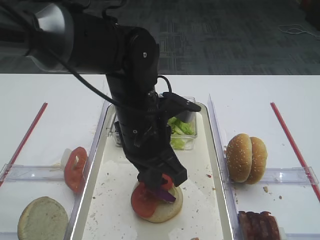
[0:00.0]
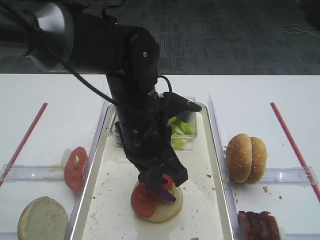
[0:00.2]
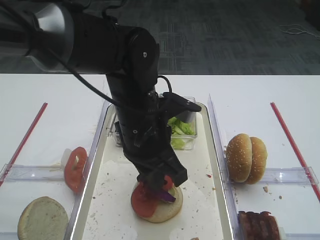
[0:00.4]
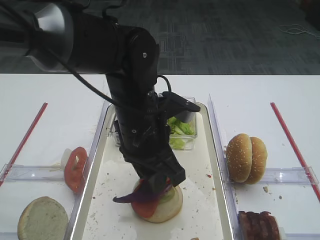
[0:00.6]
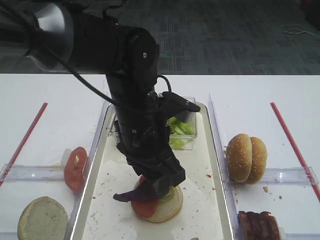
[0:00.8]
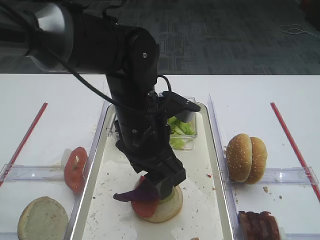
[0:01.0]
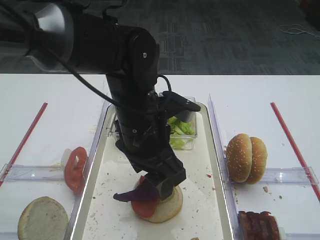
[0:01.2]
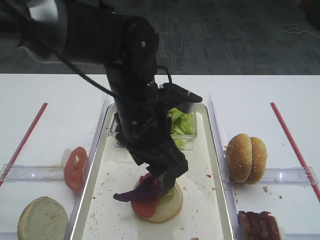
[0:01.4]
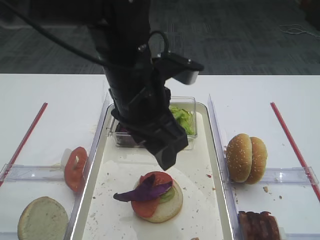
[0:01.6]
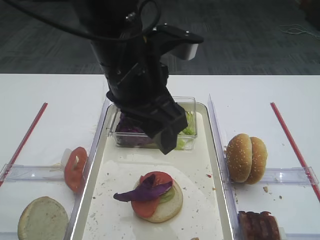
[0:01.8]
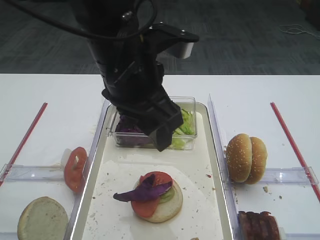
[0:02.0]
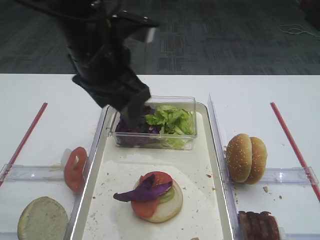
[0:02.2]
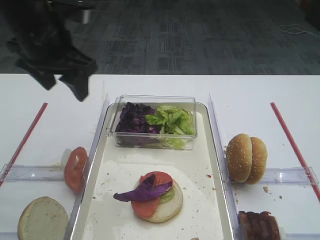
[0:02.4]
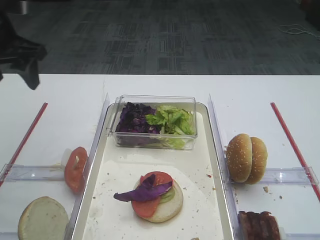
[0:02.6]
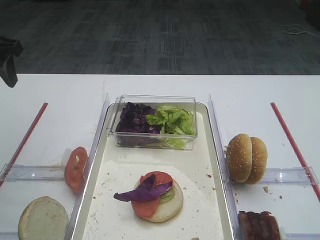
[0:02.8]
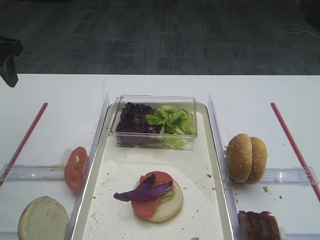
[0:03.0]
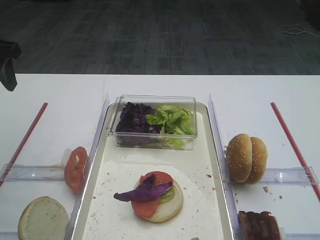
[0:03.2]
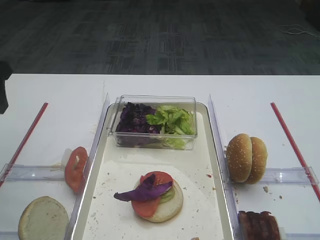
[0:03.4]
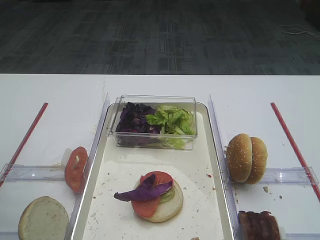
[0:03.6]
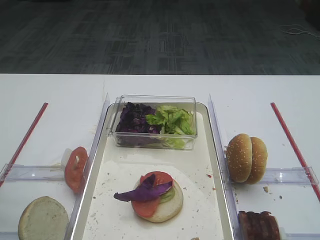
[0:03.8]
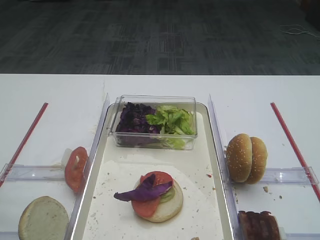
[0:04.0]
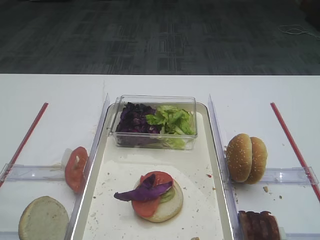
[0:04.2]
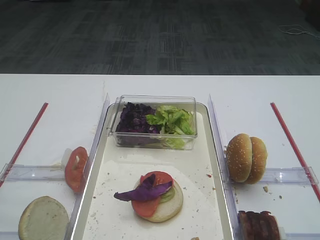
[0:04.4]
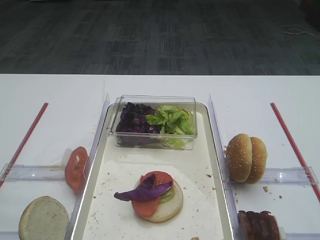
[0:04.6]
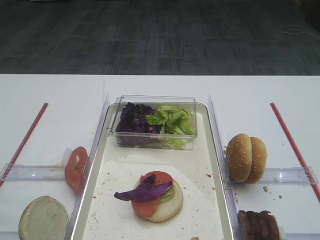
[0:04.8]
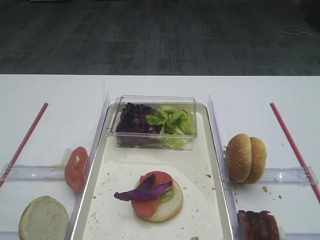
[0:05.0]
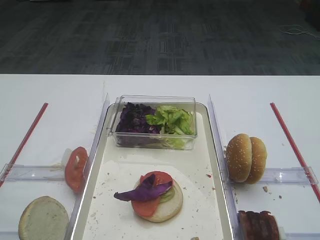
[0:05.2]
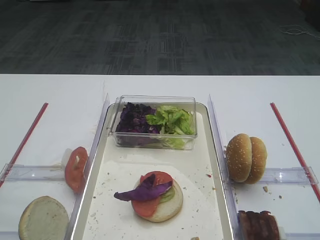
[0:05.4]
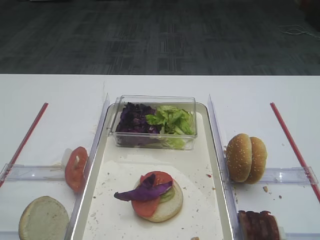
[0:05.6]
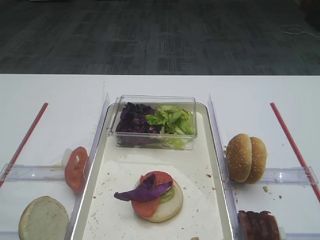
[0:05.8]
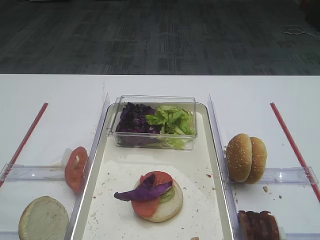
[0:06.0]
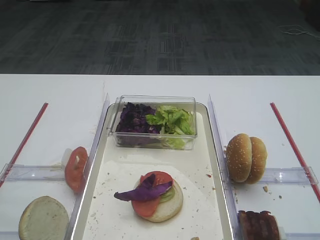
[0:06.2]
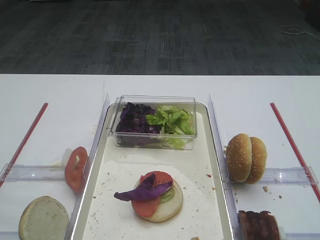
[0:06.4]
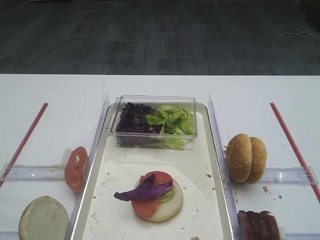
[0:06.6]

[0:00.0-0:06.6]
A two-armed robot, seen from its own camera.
0:00.0 to 0:01.6: The left gripper heads upward, covering roughly 5 cm, and opens up.
0:01.6 to 0:03.2: The left gripper goes roughly 25 cm to the left.
0:03.2 to 0:05.0: The left gripper shifts roughly 35 cm backward.
0:05.0 to 0:06.6: Both grippers stay put.

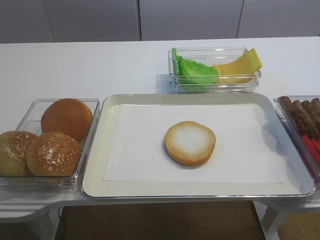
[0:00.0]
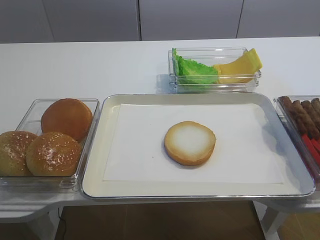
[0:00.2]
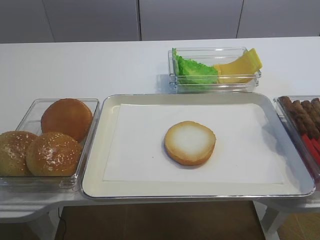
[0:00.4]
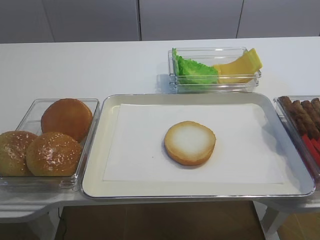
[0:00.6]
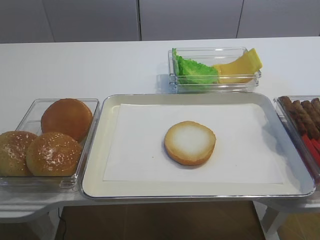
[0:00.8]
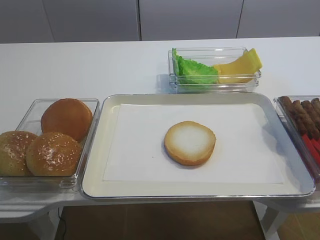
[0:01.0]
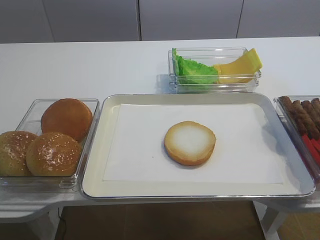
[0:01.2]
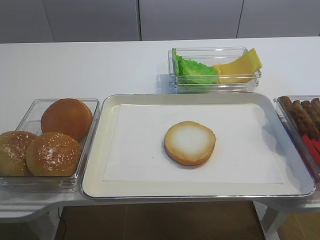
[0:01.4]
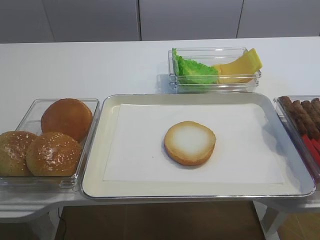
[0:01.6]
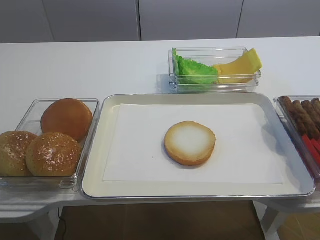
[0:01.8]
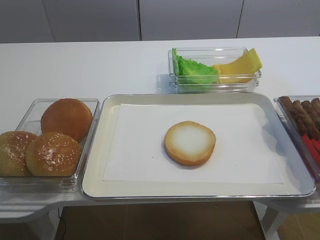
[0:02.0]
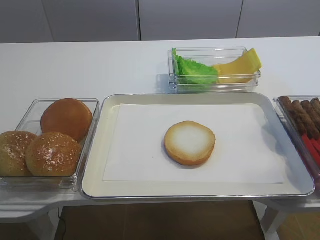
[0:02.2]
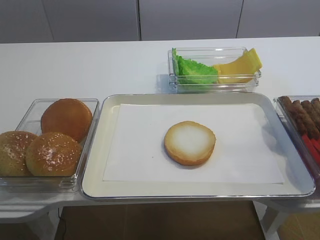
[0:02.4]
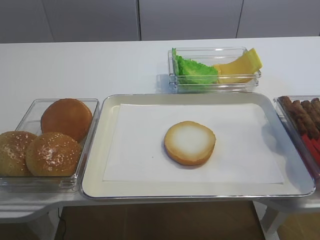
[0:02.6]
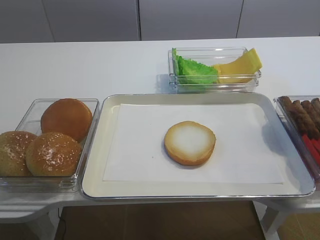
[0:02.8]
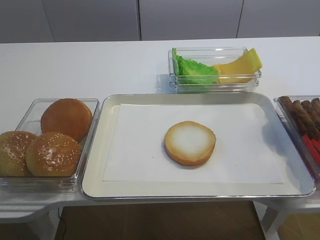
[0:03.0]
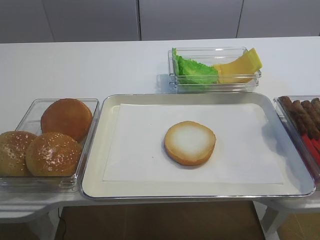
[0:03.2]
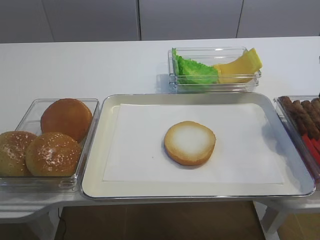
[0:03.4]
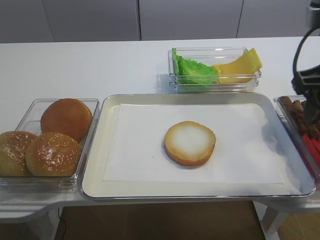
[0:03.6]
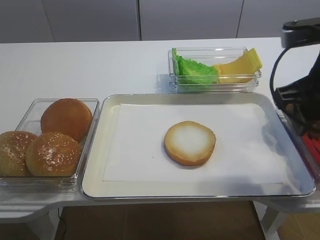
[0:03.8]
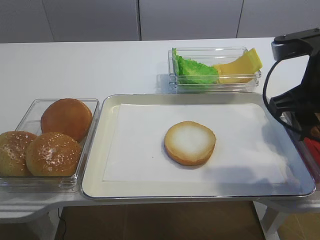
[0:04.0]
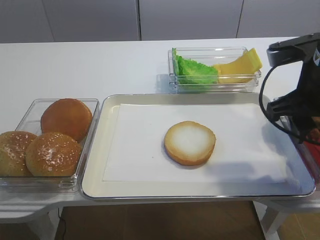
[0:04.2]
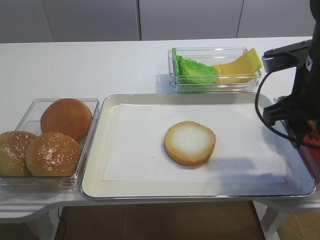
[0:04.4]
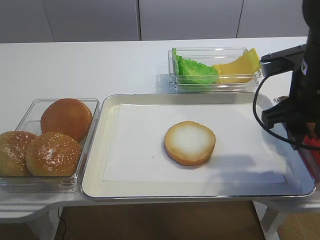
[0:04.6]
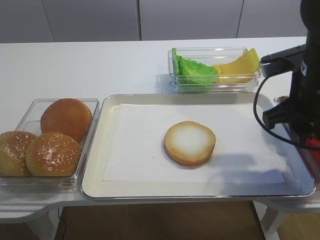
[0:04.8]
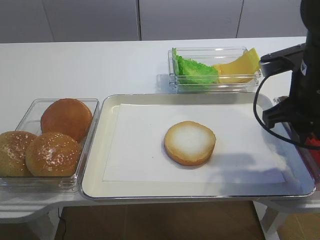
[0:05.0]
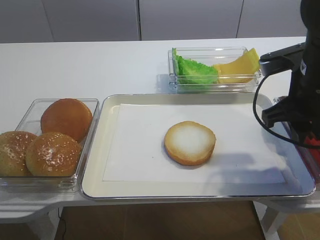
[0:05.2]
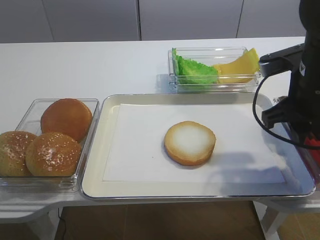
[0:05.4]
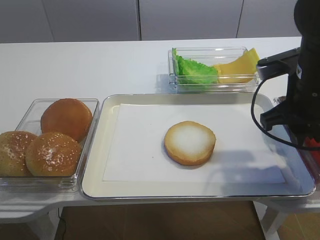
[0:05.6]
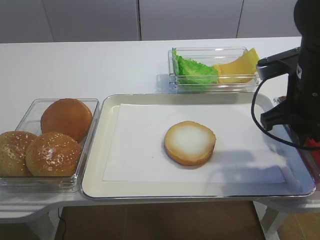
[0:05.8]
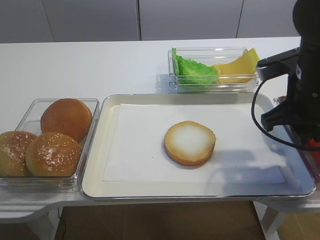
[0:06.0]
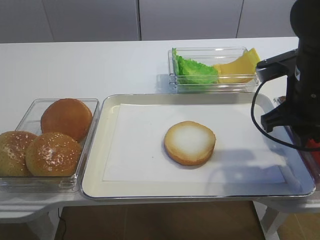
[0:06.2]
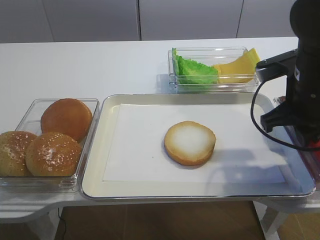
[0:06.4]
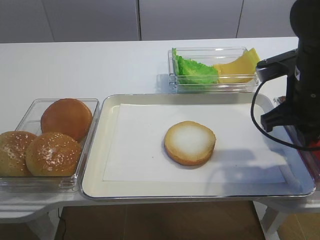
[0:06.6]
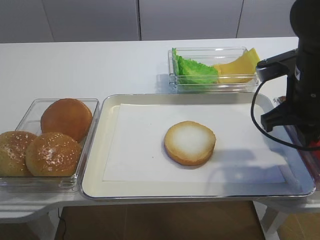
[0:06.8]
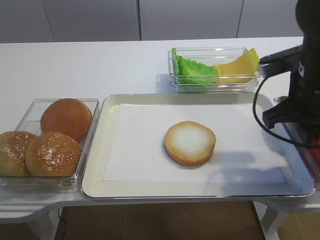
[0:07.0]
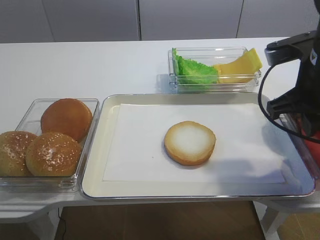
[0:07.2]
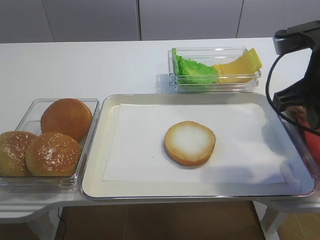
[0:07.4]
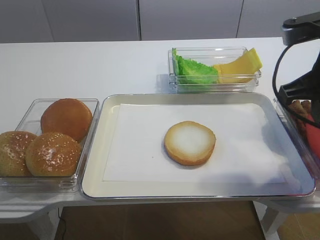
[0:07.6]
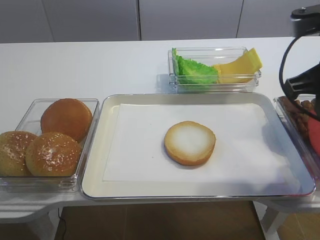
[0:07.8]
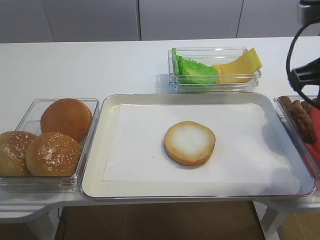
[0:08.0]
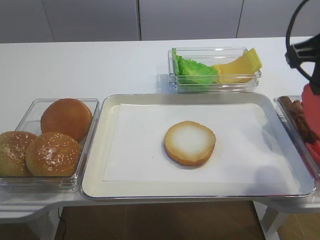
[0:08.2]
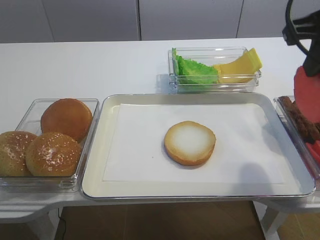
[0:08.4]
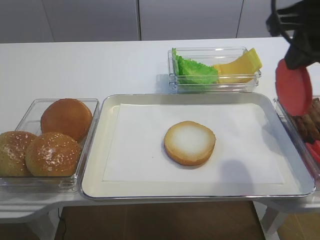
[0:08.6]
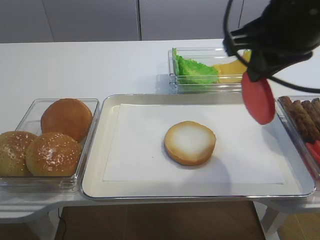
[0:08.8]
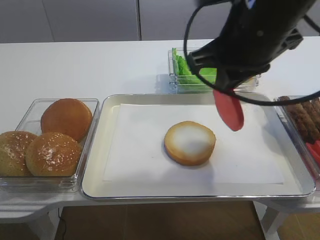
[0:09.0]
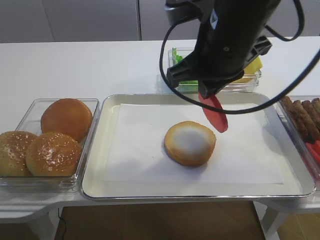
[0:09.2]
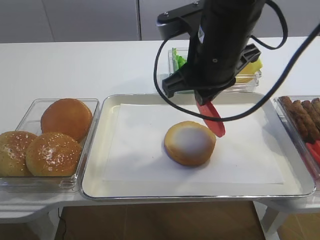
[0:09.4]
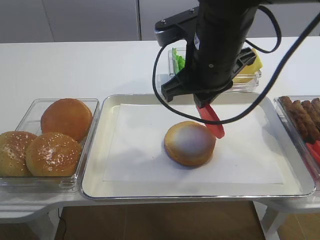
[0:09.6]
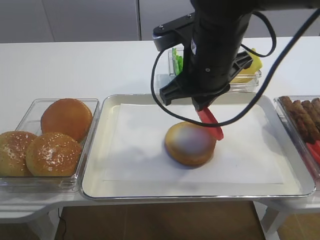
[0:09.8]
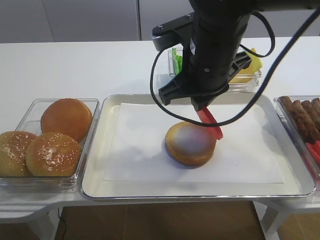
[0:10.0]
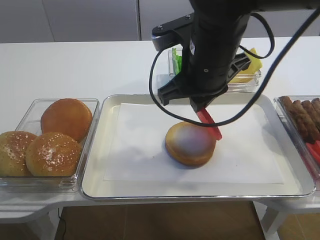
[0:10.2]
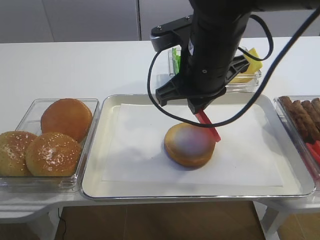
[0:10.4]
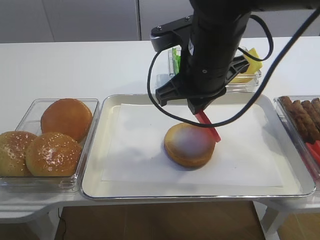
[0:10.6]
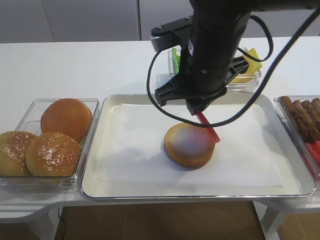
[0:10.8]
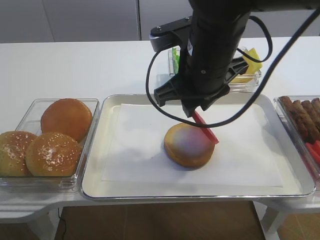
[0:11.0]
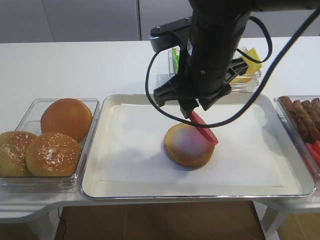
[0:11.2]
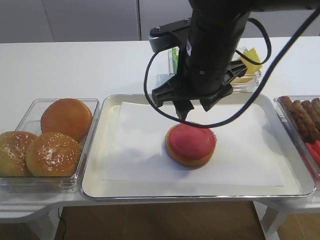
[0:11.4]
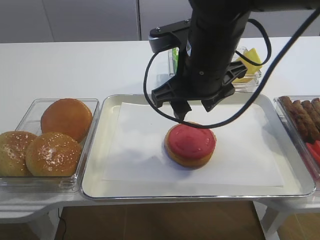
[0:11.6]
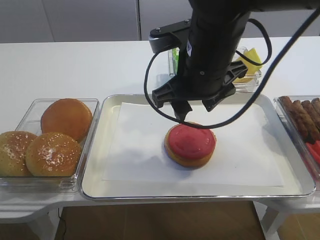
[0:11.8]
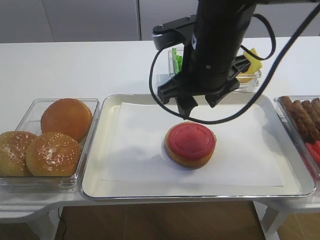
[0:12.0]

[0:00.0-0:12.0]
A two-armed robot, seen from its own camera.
Step, 0:00.0 to 0:07.6: Pick up the tomato slice with the right gripper.
0:01.6 to 0:03.0: The right gripper heads forward and upward, covering approximately 20 cm.
0:03.0 to 0:04.4: The right gripper moves downward, forward and to the left, approximately 15 cm.
0:04.4 to 0:06.0: The right gripper closes up.
0:06.0 to 0:07.6: The right gripper is displaced upward by approximately 5 cm, and closes.
0:07.6 to 0:09.0: The right gripper travels to the left by some 10 cm.
0:09.0 to 0:10.4: The right gripper is displaced downward and to the left by some 10 cm.
0:10.4 to 0:12.0: The right gripper opens.

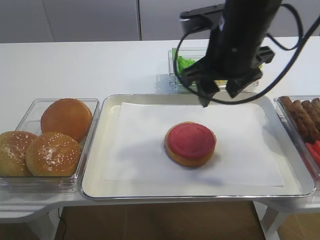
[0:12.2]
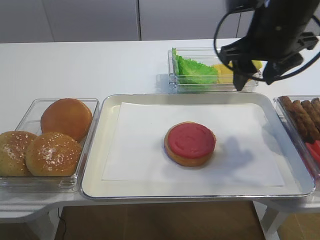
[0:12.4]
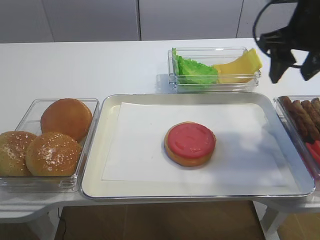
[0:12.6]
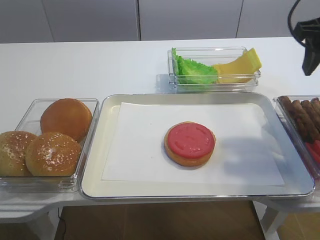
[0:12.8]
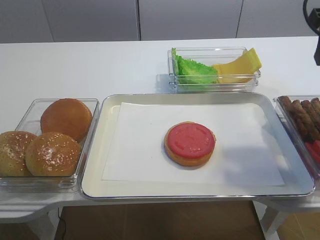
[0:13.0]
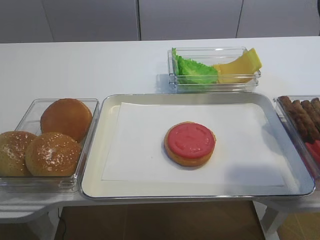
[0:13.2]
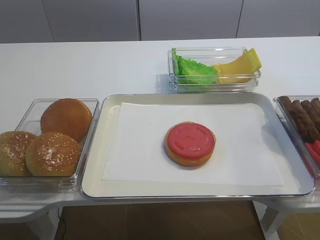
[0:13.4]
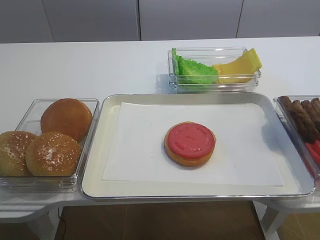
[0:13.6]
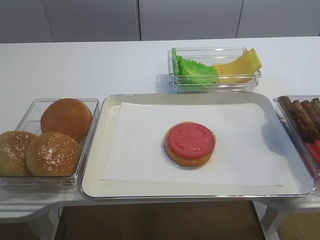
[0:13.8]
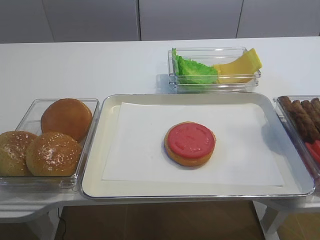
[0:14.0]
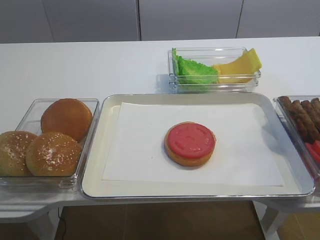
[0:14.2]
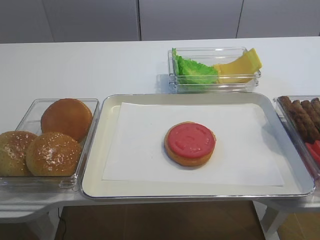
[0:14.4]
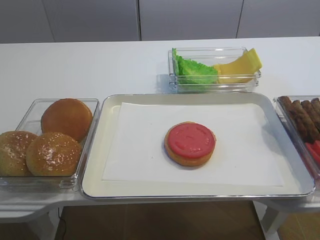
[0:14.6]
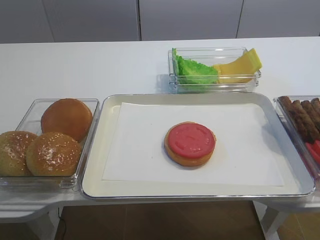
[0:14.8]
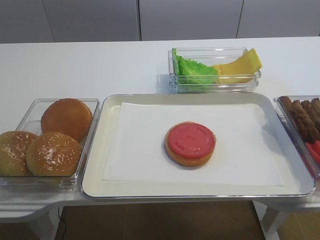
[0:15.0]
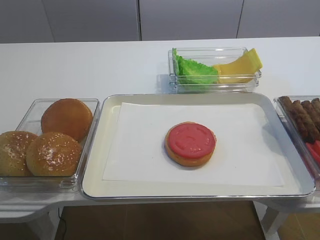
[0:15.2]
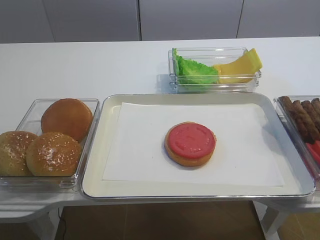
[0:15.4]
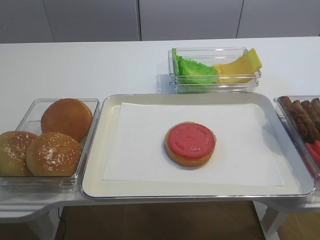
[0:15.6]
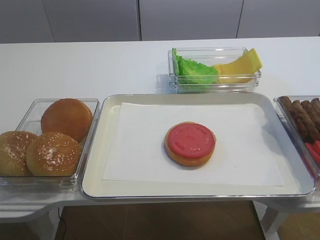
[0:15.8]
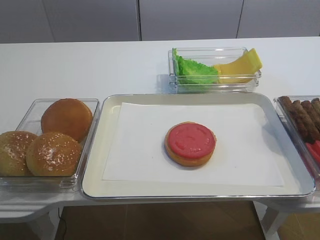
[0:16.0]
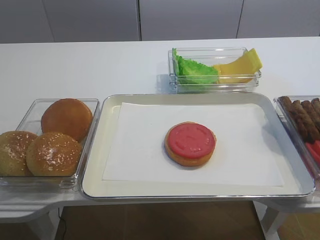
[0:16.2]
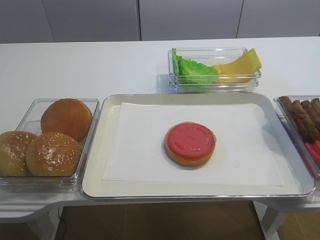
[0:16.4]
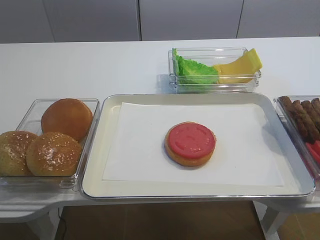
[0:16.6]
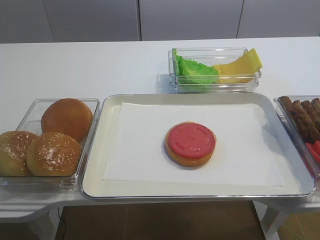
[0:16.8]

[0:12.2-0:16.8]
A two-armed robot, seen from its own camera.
0:12.2 to 0:13.8: The right gripper moves to the right and backward, roughly 25 cm.
0:15.2 to 0:16.8: The two grippers keep their place.
